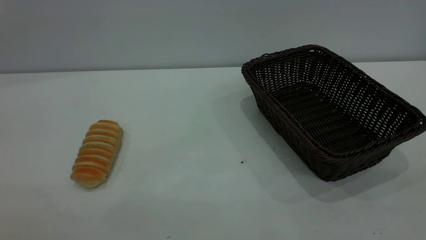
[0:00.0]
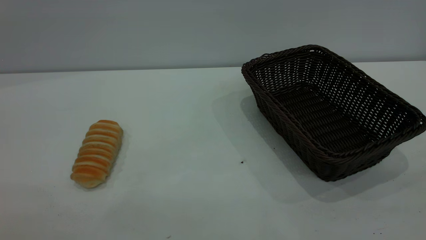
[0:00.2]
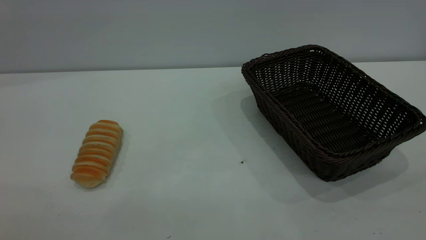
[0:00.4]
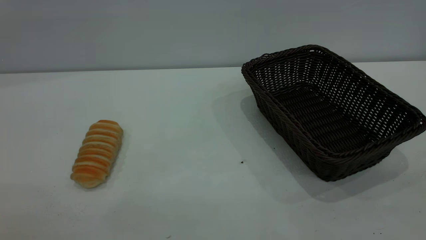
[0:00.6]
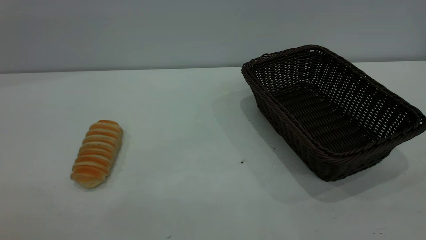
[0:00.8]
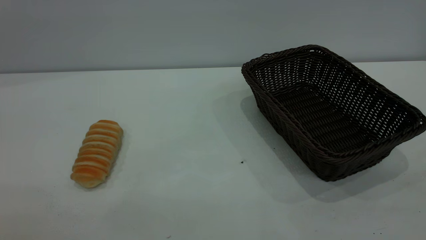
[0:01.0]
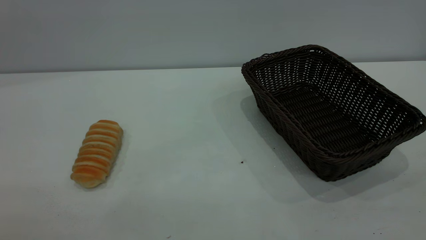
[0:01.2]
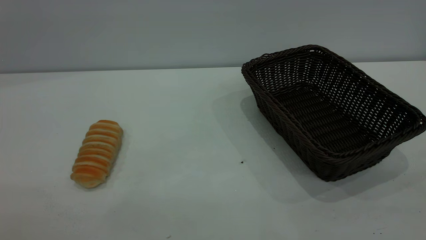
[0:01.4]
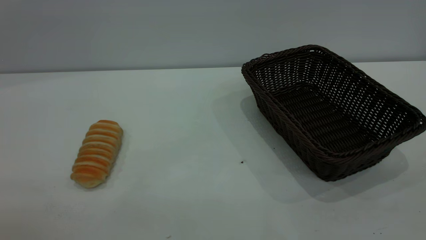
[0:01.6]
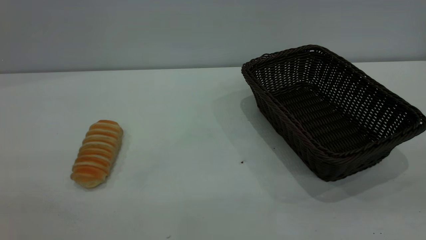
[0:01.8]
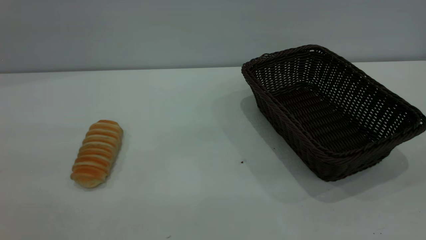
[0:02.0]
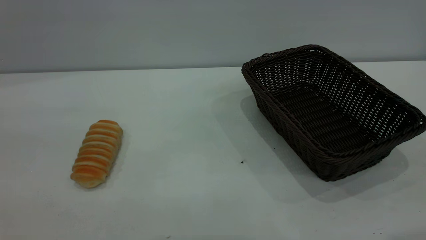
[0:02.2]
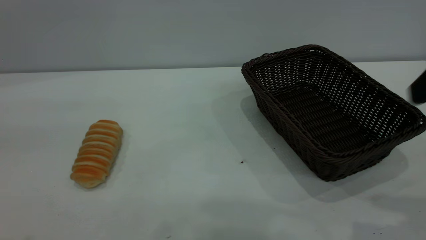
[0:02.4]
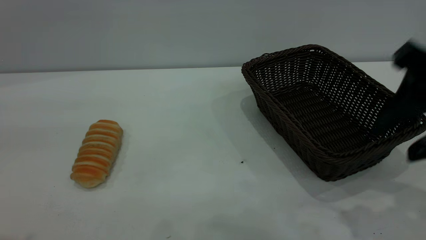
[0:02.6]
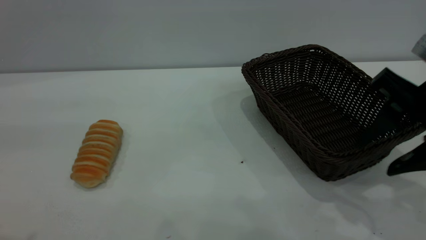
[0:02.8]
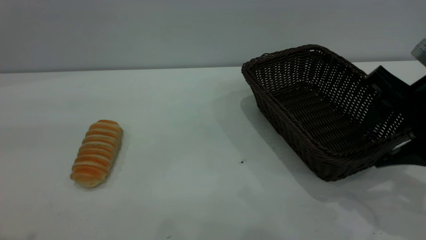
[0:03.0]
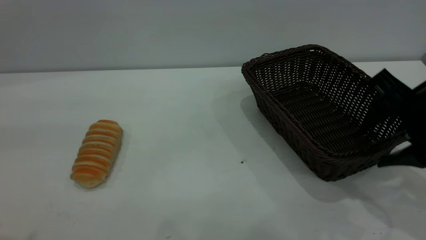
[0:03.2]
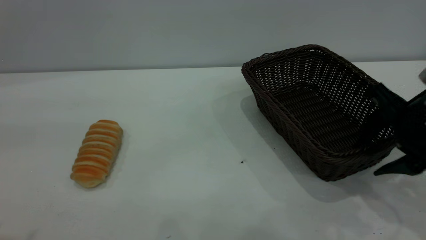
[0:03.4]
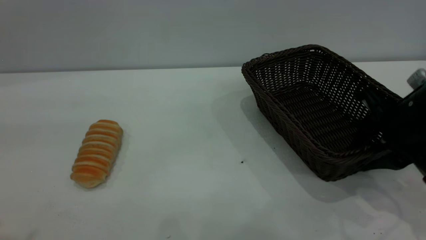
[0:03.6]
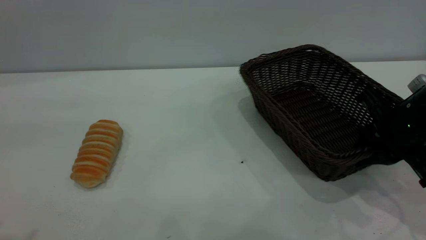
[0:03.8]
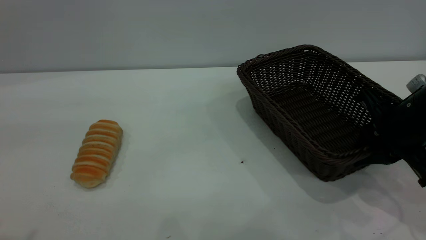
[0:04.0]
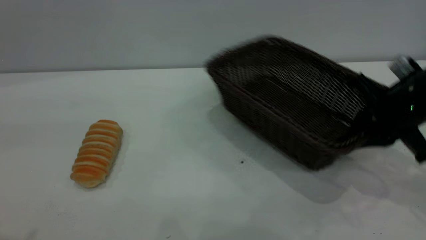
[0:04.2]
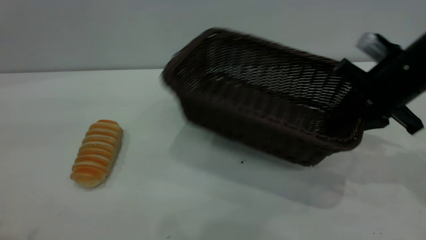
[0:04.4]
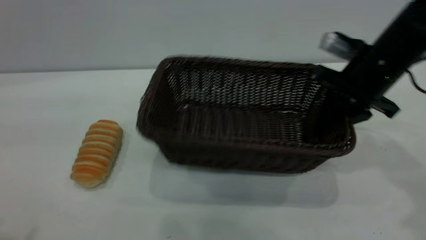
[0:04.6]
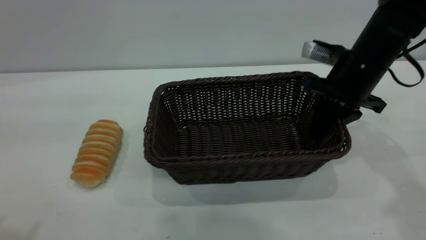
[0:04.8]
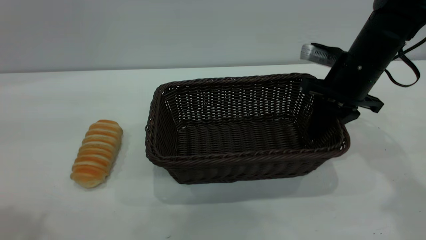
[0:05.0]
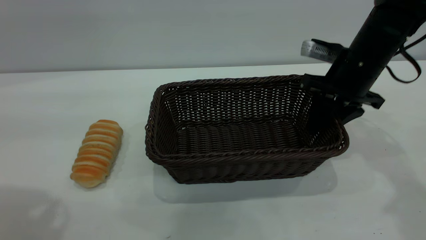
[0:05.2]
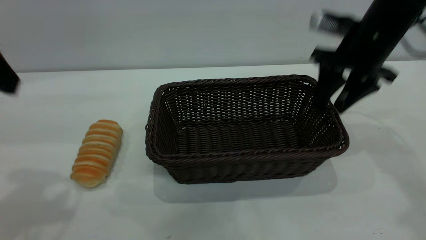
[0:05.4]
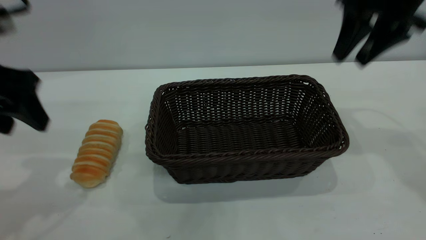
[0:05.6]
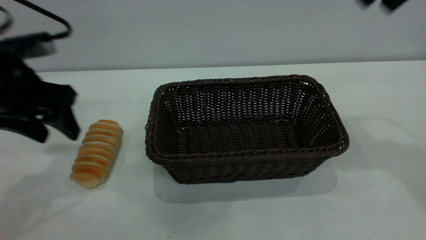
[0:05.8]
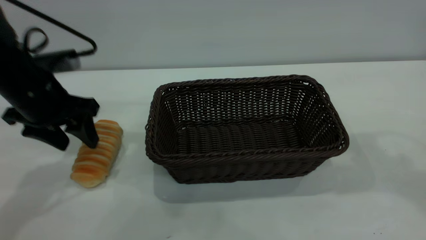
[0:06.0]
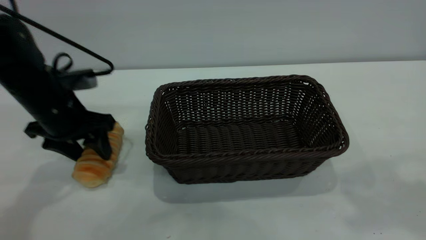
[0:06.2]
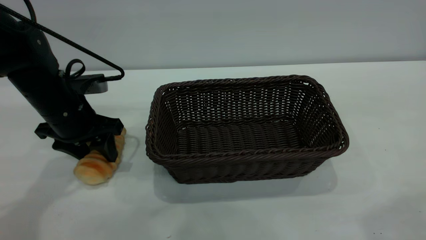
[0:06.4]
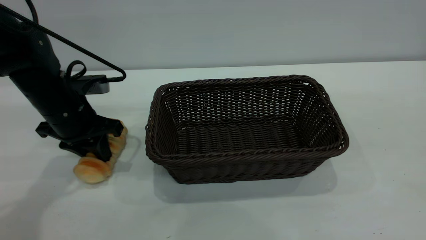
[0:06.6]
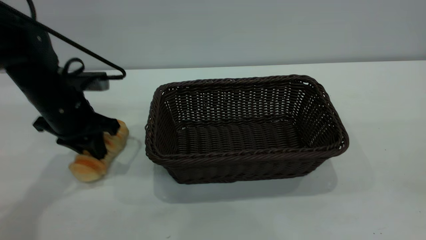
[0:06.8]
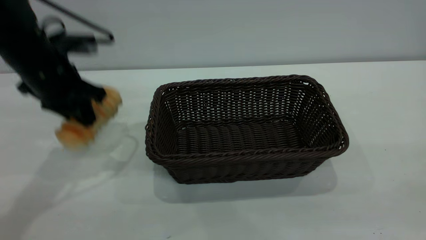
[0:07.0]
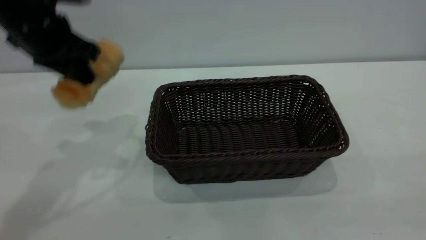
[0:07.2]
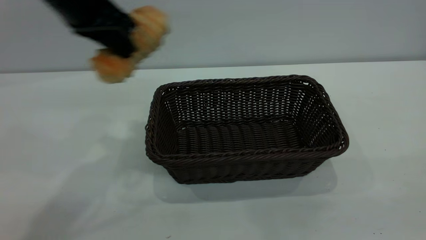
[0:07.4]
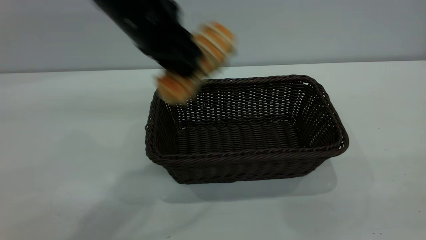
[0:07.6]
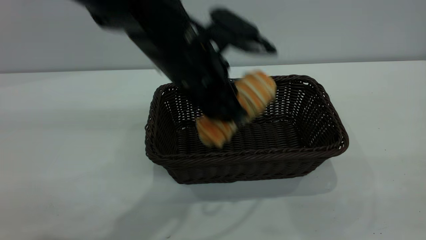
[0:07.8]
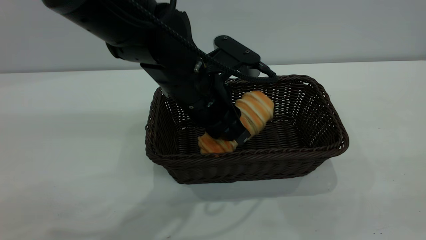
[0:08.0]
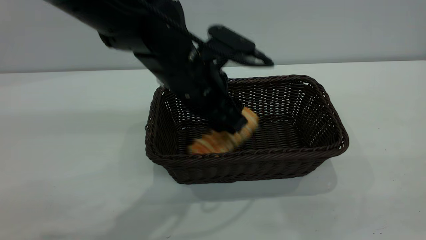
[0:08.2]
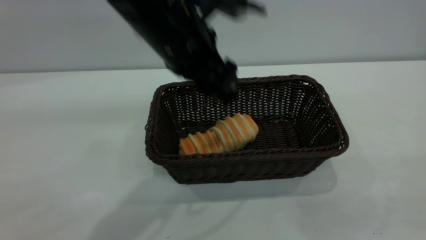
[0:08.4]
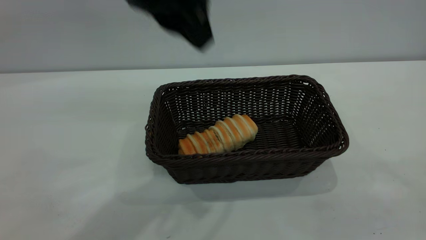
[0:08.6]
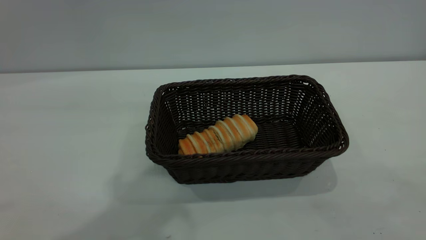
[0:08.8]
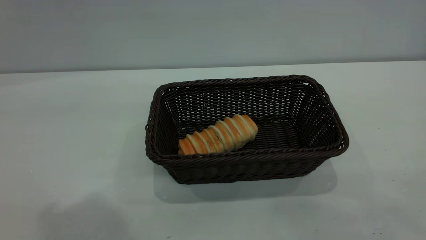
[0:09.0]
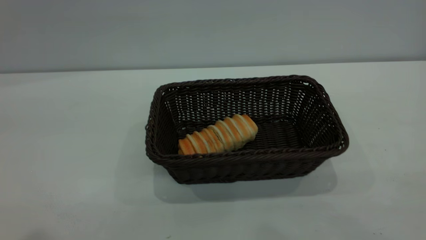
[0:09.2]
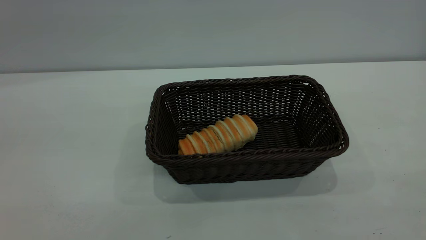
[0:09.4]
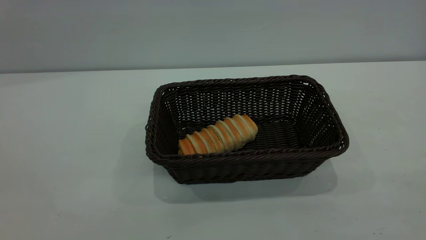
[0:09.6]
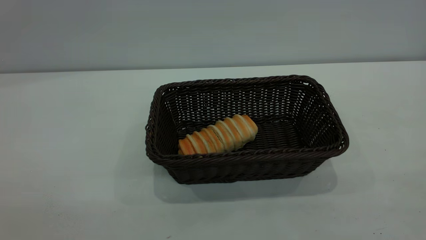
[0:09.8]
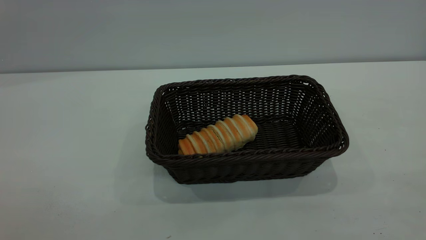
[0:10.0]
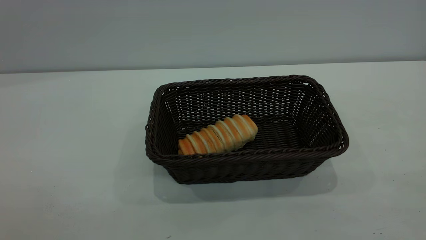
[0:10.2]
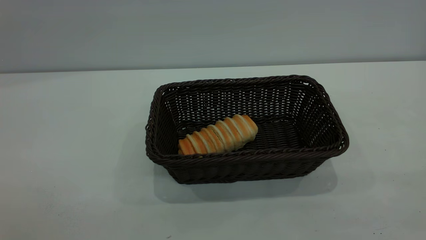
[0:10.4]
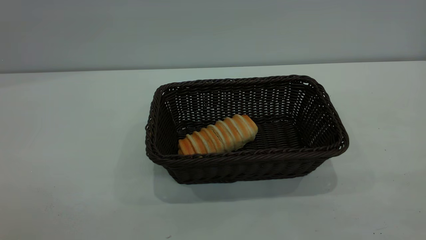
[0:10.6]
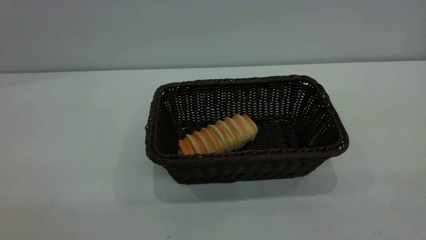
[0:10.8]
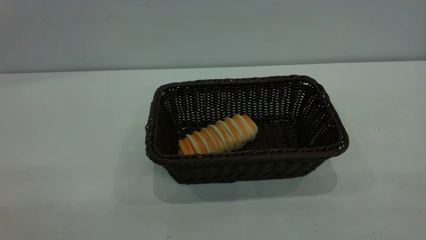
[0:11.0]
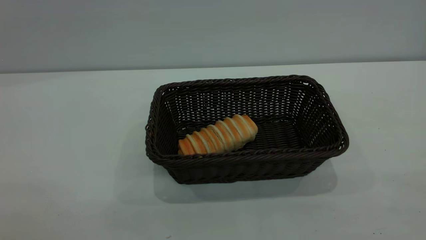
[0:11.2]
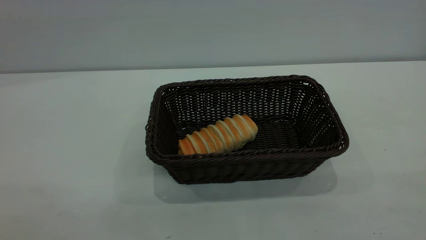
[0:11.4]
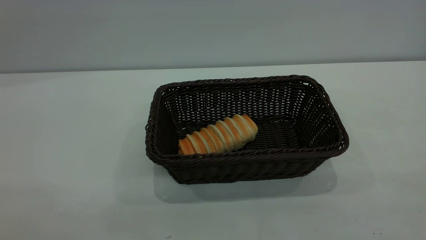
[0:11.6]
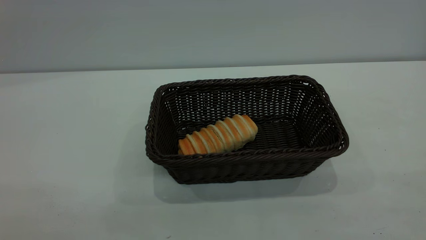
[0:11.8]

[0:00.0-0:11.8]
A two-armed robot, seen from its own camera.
Task of the whole recording: One hand grasps the black basket and places it in the middle of the table, while the other hand picks up the long bread and puts it into the black basket.
Step, 0:00.0 to 0:05.4: Move the basket to the center of view.
Step, 0:07.0 to 0:08.4: place the bread into the basket.
0:00.0 to 0:01.4: The two grippers keep their place.
0:01.4 to 0:03.0: The right gripper goes roughly 30 cm forward and downward, and opens up.
0:03.0 to 0:04.4: The right gripper travels forward by approximately 10 cm, and closes its fingers.
0:04.4 to 0:06.0: The left gripper travels downward and forward by some 30 cm; the right gripper moves upward, approximately 30 cm, and opens its fingers.
0:06.0 to 0:07.4: The right gripper shifts roughly 30 cm backward. The left gripper goes about 15 cm upward and to the right, and closes.
0:07.4 to 0:08.8: The left gripper moves upward and backward, some 20 cm, and opens its fingers.

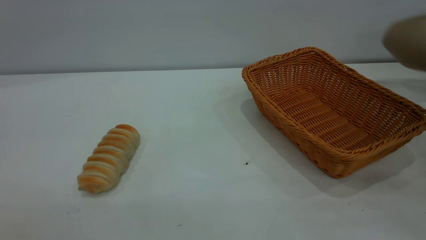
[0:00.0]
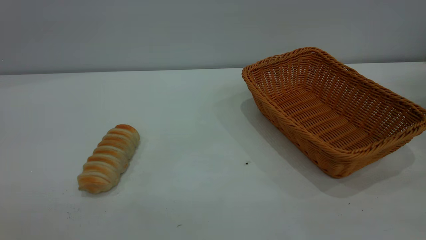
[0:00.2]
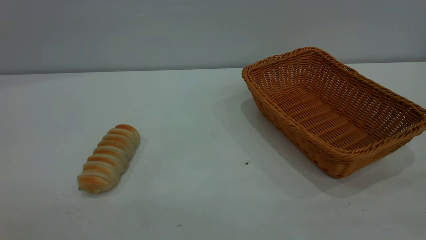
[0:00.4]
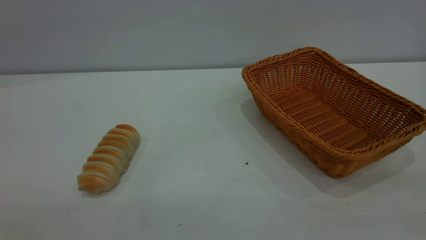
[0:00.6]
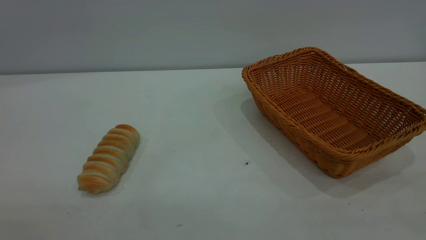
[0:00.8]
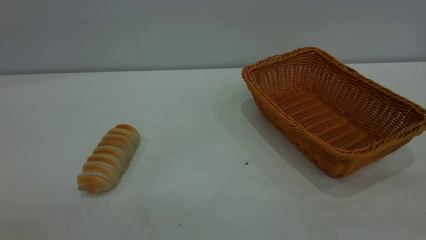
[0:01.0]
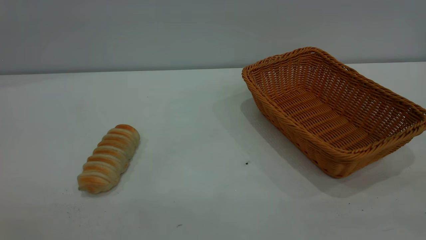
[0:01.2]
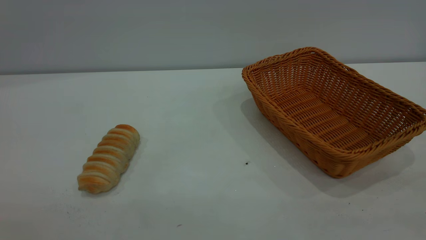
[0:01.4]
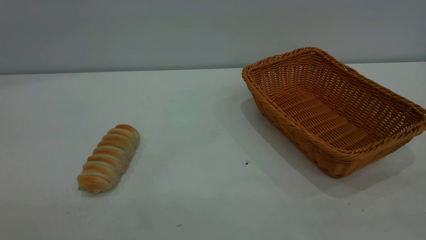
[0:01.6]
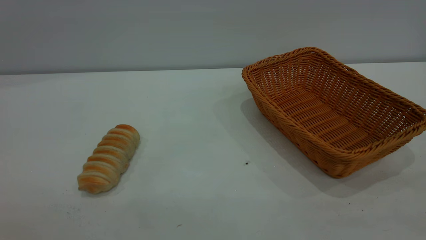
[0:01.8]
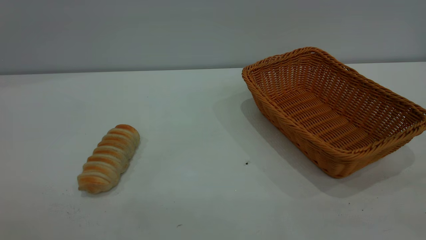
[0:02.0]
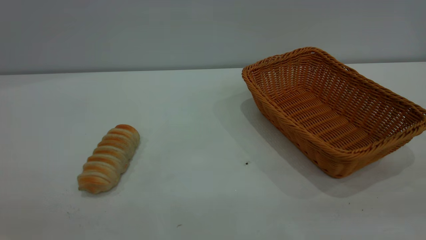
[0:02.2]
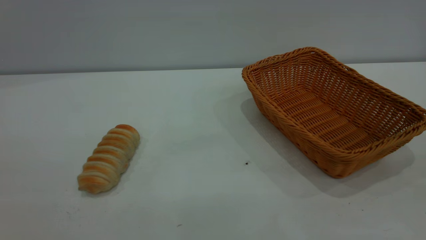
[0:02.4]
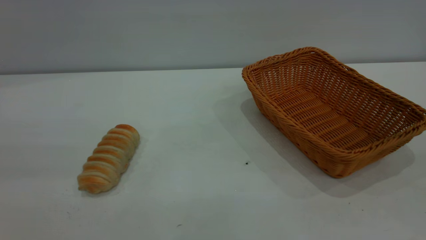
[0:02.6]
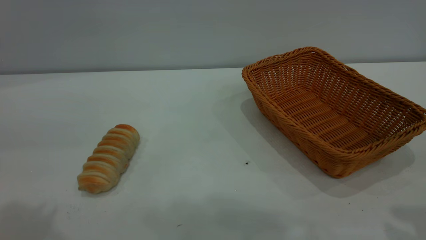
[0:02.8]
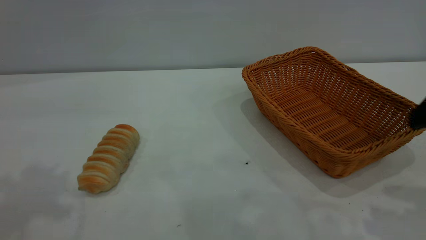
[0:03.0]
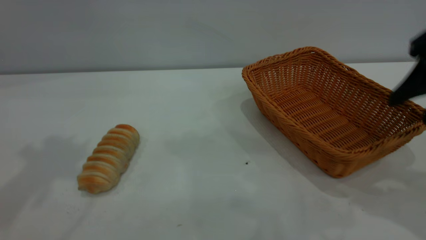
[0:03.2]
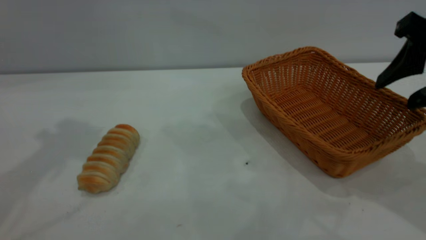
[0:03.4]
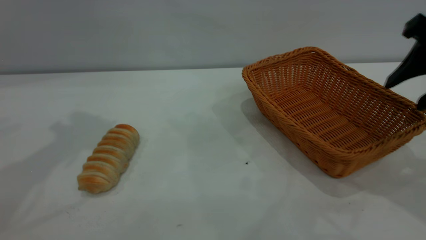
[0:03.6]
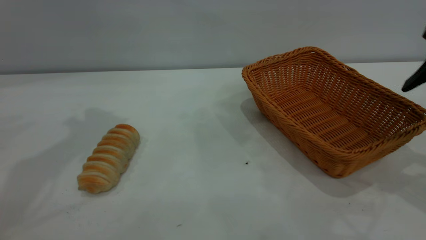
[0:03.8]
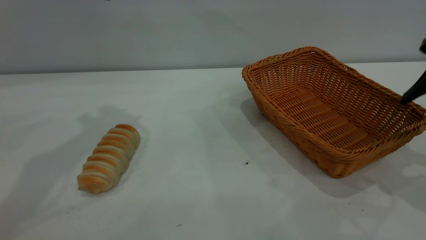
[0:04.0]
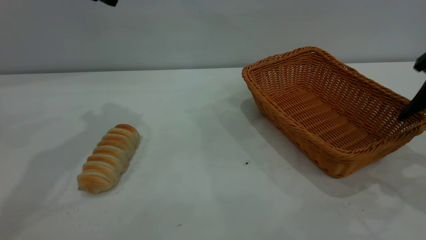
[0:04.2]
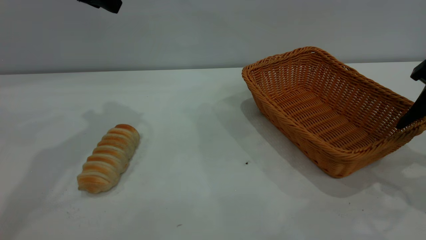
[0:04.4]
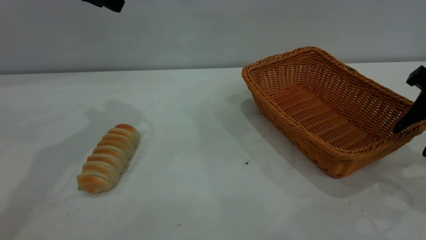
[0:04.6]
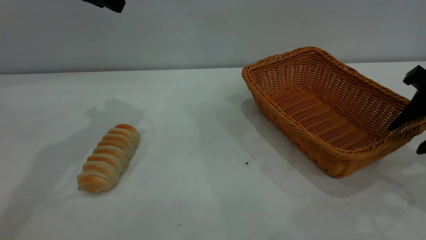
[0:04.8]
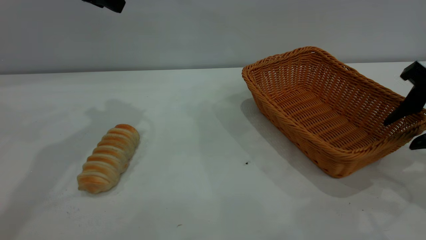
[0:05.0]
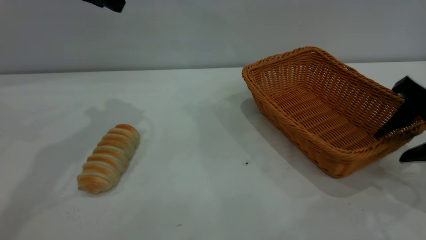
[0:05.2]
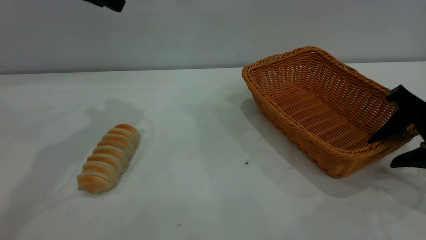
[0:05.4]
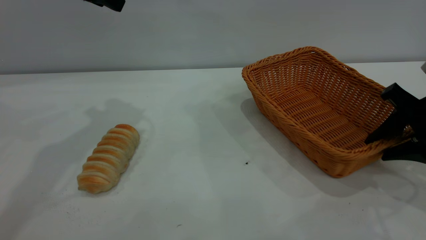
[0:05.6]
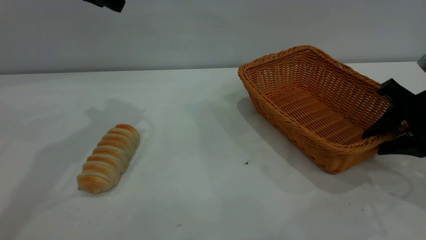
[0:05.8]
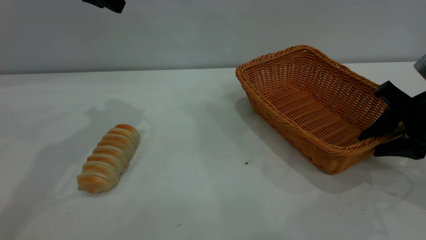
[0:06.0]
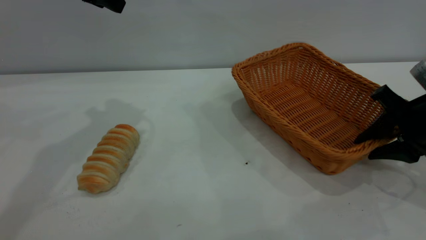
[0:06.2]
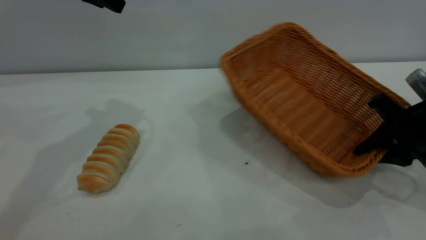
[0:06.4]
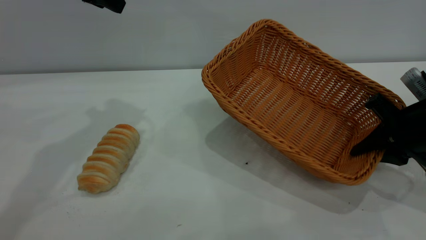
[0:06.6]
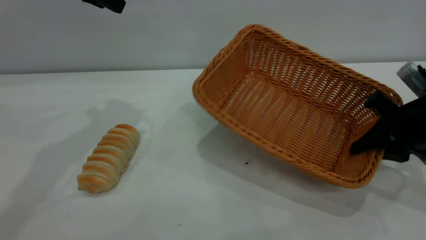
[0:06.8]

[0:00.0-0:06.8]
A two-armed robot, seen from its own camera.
Task of the whole recording: One hand grasps the yellow basket and places it in the middle of the table, while the other hand picks up the long bread and puts it into the yellow basket.
0:00.0 to 0:01.4: Both grippers stay about where they are.
0:04.0 to 0:05.4: The right gripper moves downward, some 10 cm.
0:05.4 to 0:06.8: The right gripper closes up.
